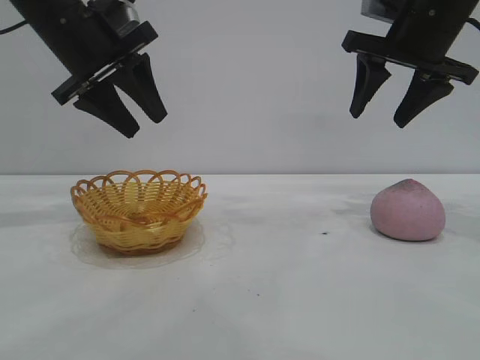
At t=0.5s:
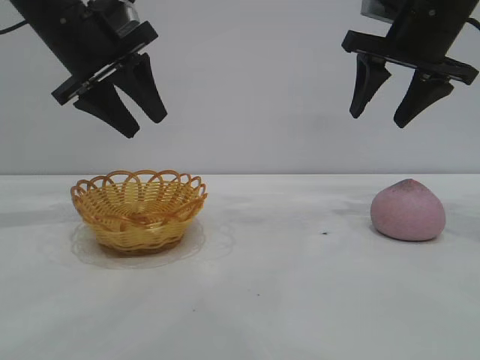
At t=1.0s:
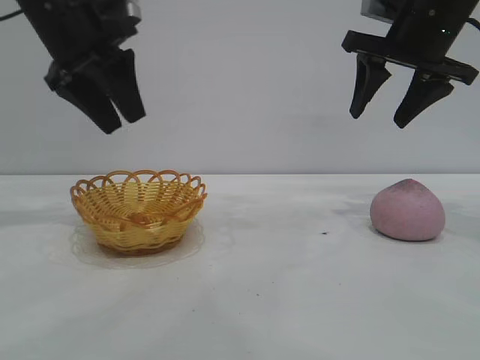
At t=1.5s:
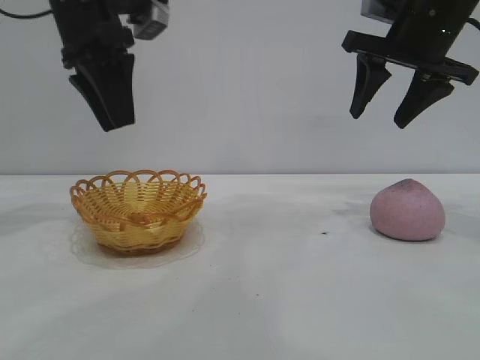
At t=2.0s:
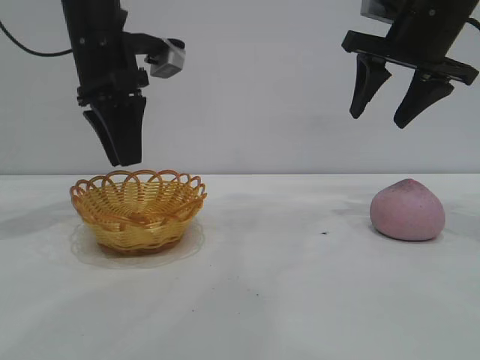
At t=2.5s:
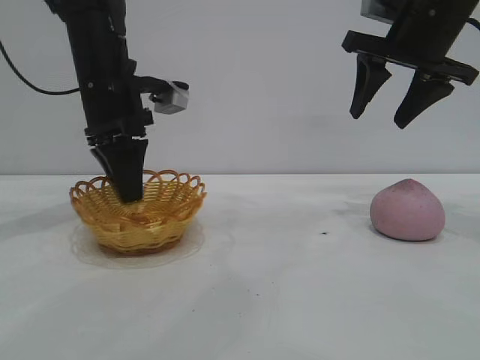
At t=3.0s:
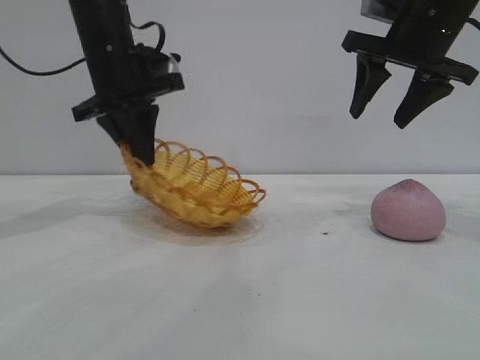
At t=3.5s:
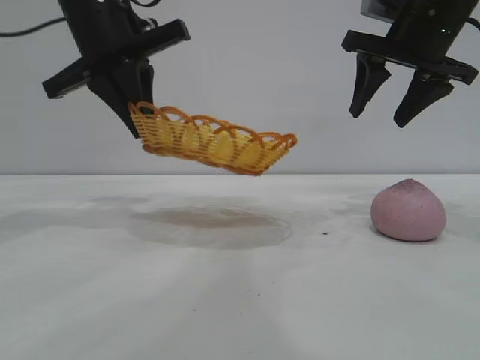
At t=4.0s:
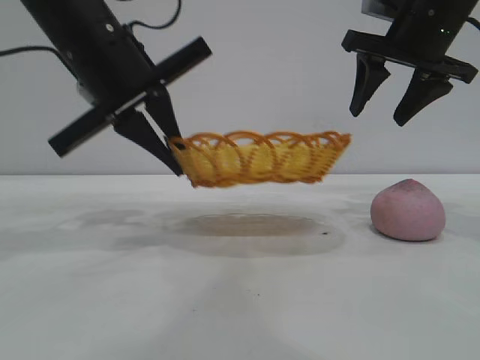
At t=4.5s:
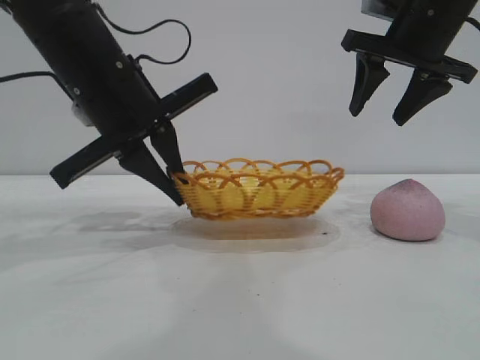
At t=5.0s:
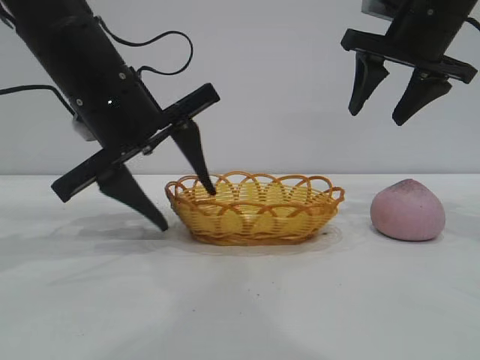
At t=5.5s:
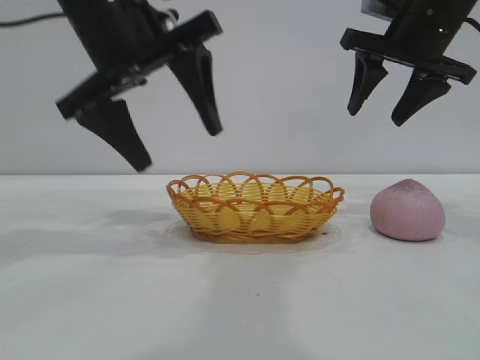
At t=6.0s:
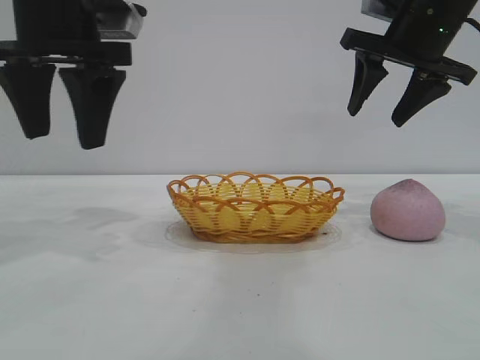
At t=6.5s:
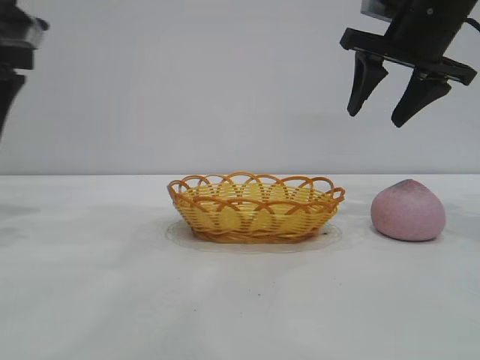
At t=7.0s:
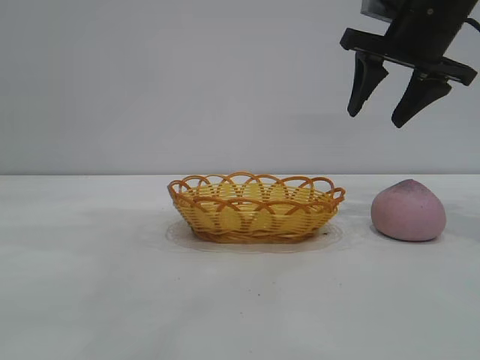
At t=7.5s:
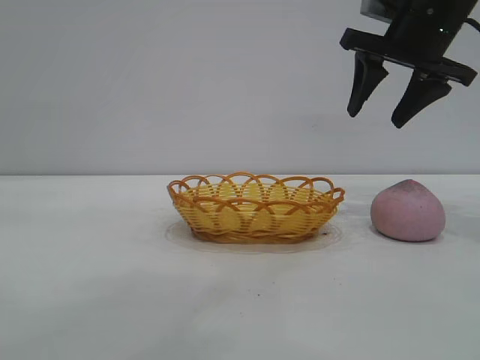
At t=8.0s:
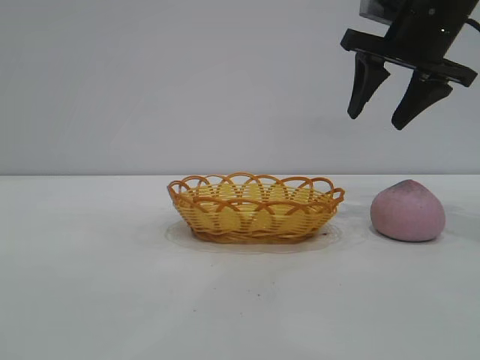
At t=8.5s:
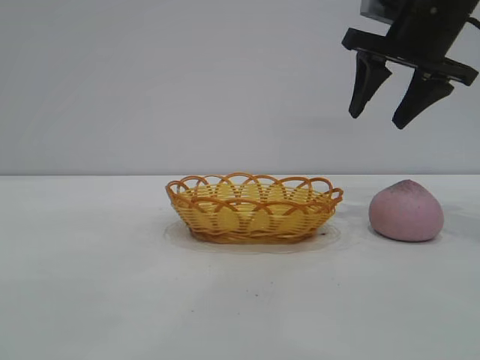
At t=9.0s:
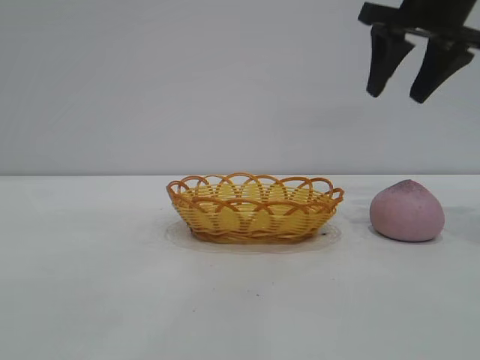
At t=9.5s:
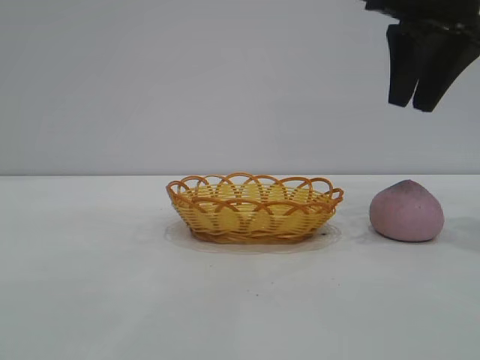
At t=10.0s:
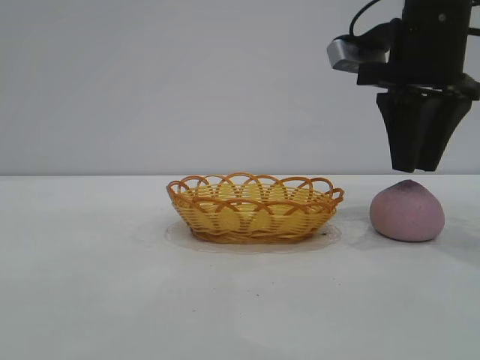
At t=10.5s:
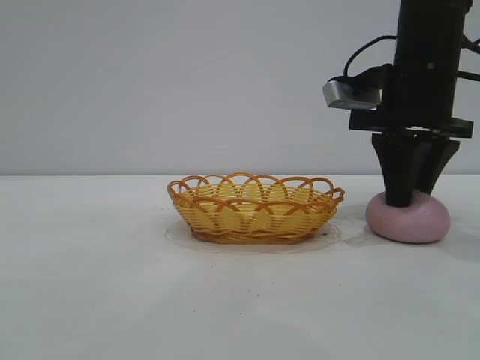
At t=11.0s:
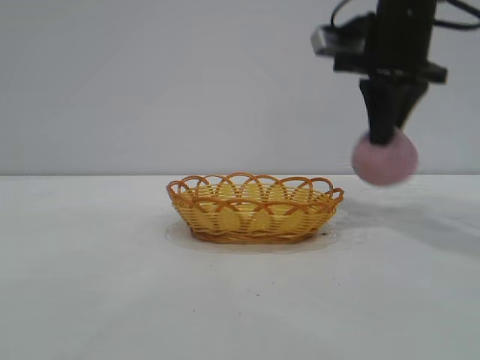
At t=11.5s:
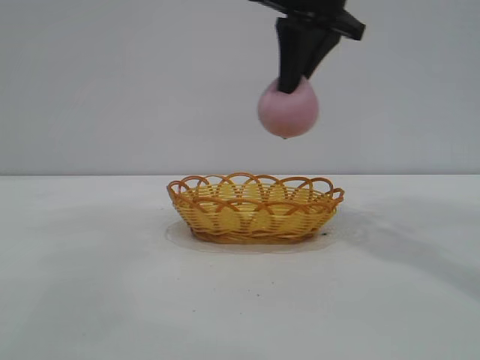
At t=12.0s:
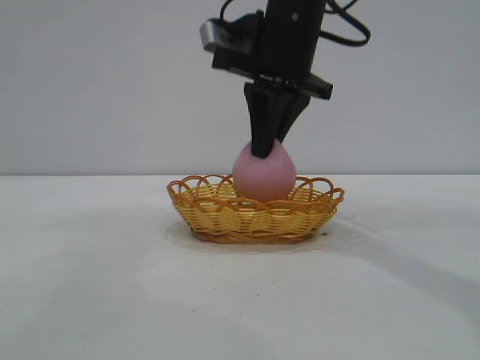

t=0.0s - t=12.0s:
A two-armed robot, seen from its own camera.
Task of the whole recording: pick up the peach and put it into the basket.
Step, t=0.0s - t=5.5s: Move the basket to the center of view.
Step, t=6.0s - t=11.0s: Pick up the peach.
